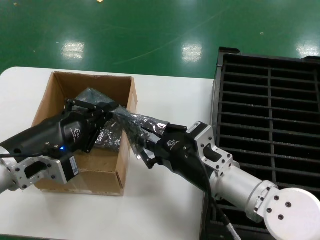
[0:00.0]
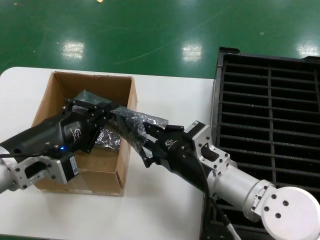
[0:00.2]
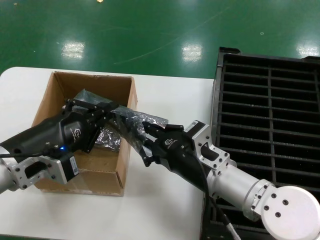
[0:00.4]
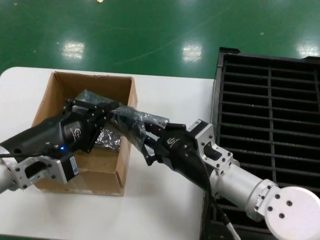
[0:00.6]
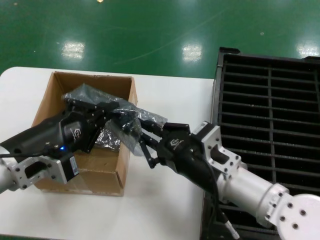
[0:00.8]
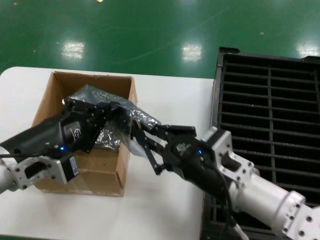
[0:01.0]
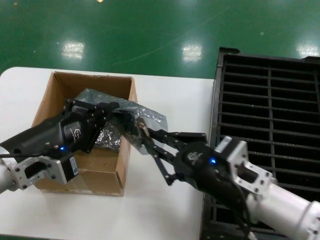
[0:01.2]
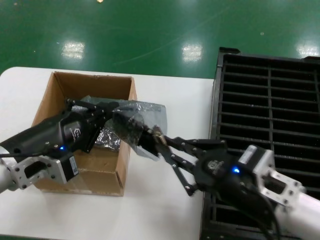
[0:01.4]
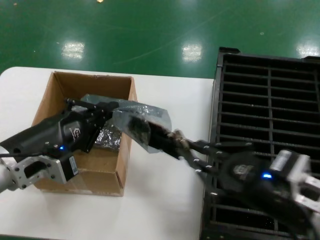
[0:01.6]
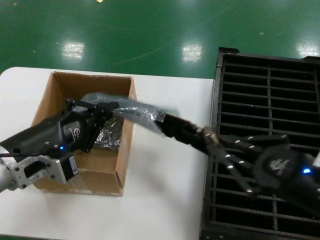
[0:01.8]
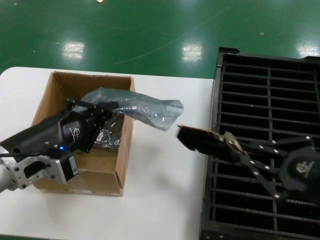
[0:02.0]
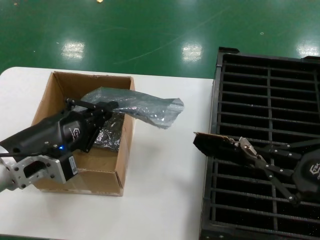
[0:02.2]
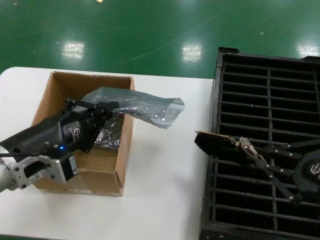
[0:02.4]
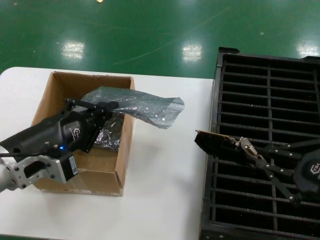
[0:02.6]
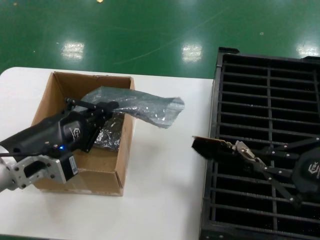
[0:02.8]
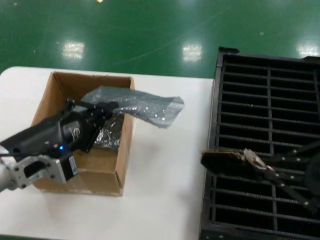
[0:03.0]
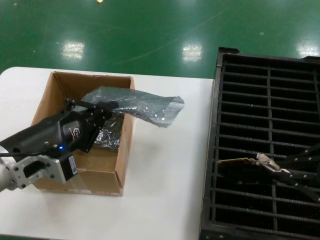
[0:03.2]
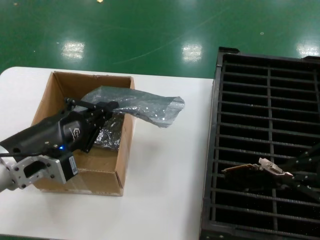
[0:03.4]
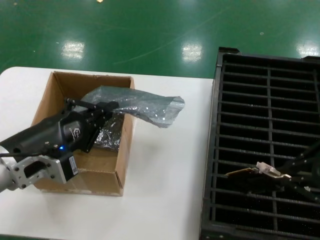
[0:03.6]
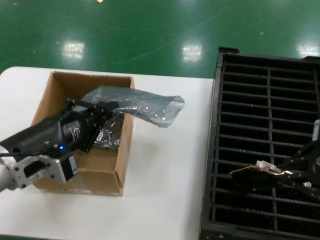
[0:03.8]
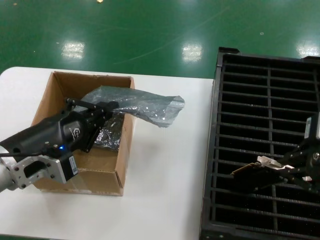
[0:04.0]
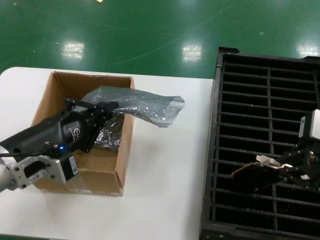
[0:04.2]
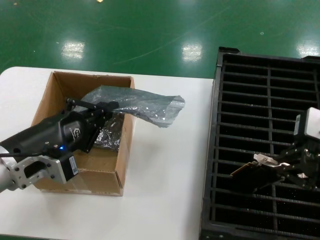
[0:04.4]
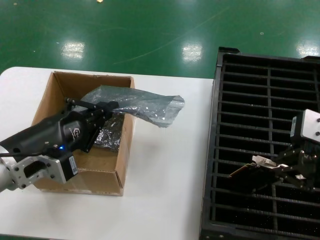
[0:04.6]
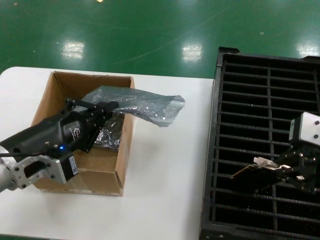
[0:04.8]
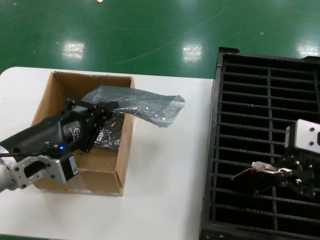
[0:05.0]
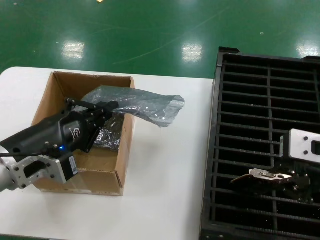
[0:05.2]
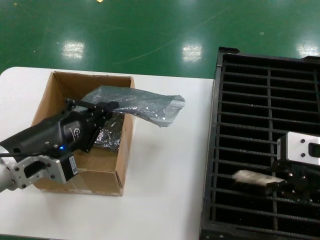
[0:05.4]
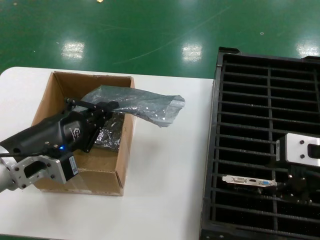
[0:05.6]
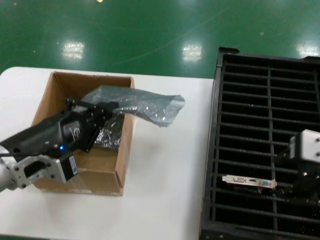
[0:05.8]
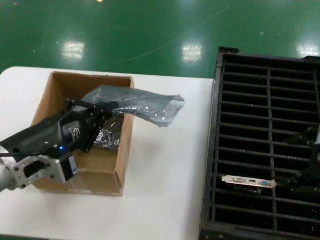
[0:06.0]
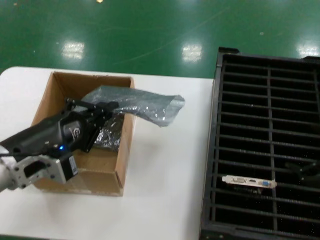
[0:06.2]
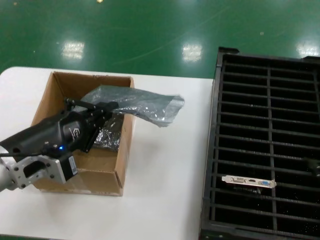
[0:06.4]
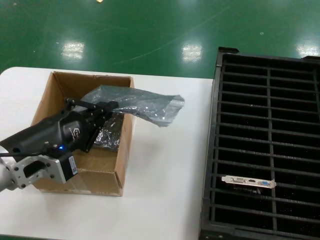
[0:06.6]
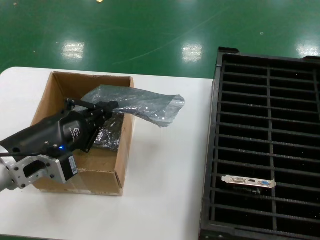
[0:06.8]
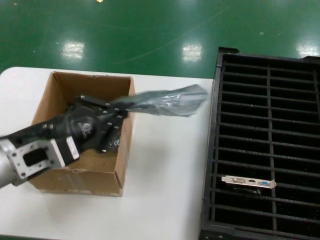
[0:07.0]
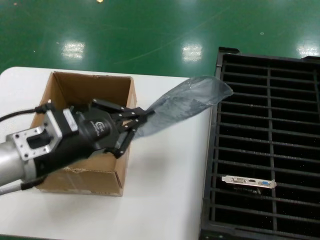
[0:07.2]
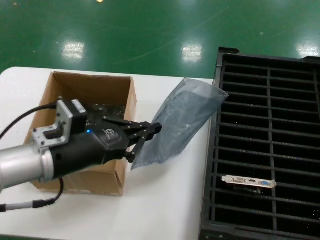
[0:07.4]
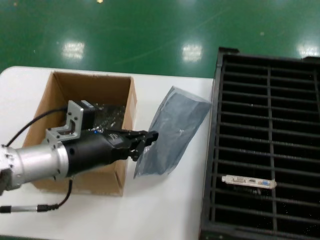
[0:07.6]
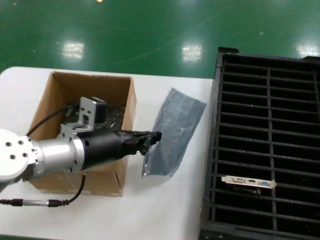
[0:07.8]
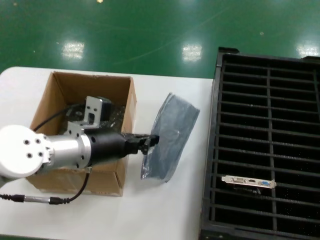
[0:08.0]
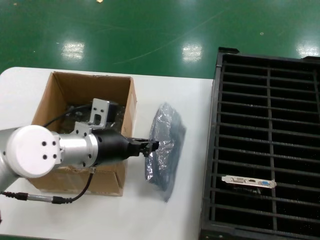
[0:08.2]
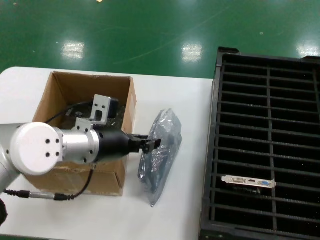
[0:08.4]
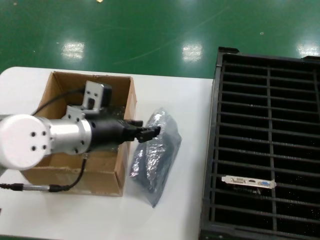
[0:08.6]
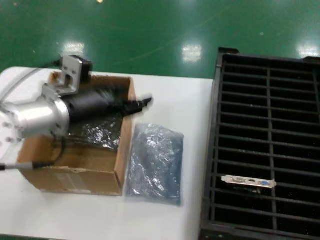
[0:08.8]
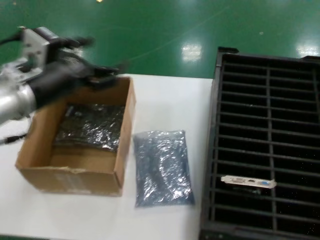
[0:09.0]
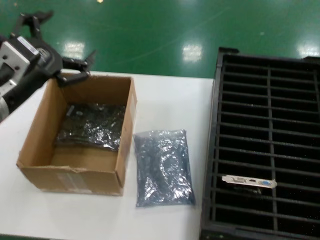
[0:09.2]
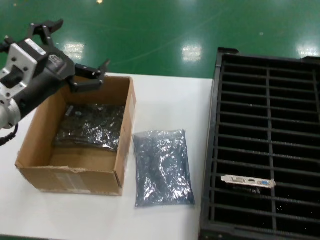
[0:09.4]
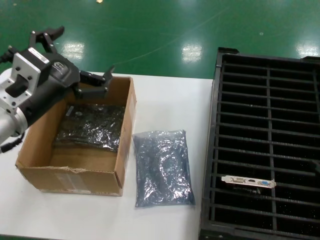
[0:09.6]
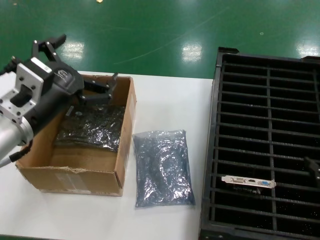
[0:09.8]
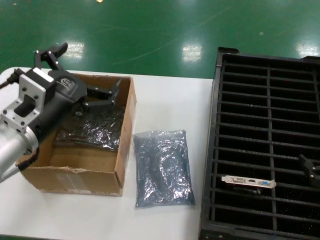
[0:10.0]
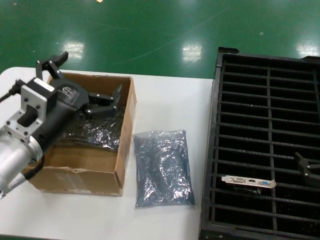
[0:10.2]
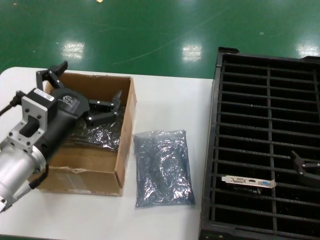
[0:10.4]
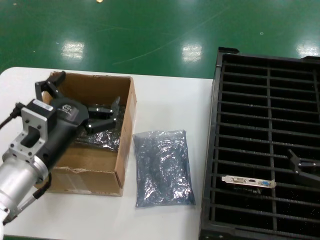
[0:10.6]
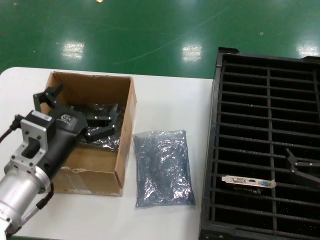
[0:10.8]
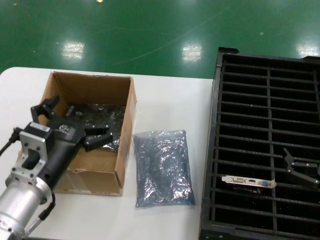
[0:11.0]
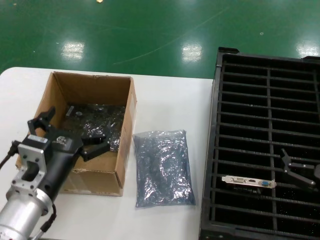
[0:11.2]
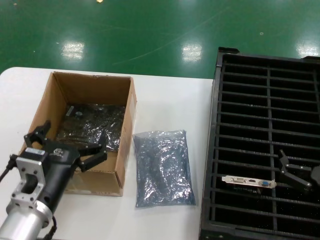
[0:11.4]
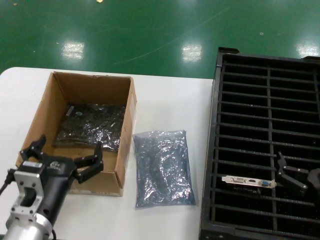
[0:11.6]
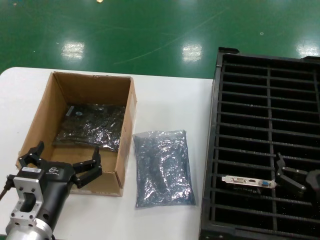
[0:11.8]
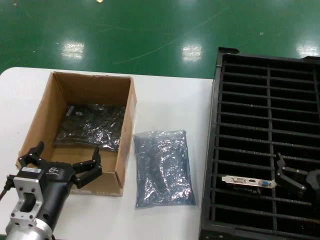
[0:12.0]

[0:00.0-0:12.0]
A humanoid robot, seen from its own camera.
Task of the whole recording: take out graphics card from box remove packaging put into black container.
Step, 0:00.0 to 0:02.0: Take out the hard disk of the bag.
Step, 0:02.2 to 0:06.4: Place the hard disk in the hard disk enclosure.
Step, 0:06.6 to 0:09.2: Place the down the bag.
0:00.0 to 0:01.6: The right hand moves to the right, backward and upward, some 15 cm.
0:01.6 to 0:03.0: The right hand travels upward and to the right by roughly 15 cm.
0:03.0 to 0:04.4: The right hand is displaced forward by some 5 cm.
0:04.4 to 0:06.0: The hands stay close to where they were, moving slightly.
0:06.0 to 0:07.6: The right hand travels to the right and downward by about 20 cm; the left hand heads forward, covering approximately 5 cm.
0:07.6 to 0:09.0: The left hand travels upward by about 10 cm.
0:09.0 to 0:10.4: The right hand heads downward and to the left, covering about 10 cm, while the left hand is displaced downward by about 10 cm.
0:10.4 to 0:12.0: The right hand heads to the left and downward, covering some 10 cm; the left hand heads downward and backward, covering approximately 15 cm.

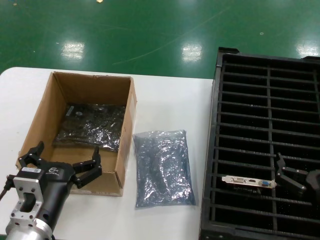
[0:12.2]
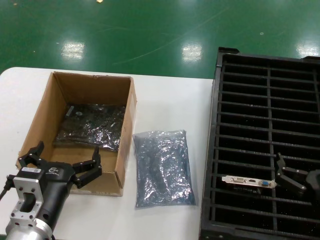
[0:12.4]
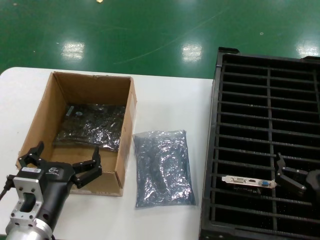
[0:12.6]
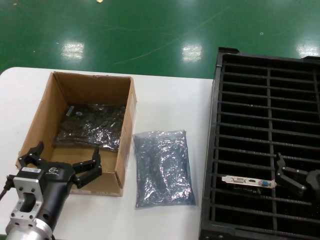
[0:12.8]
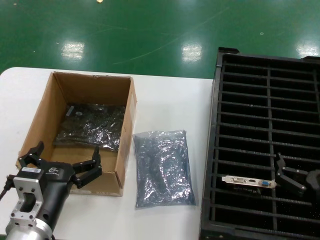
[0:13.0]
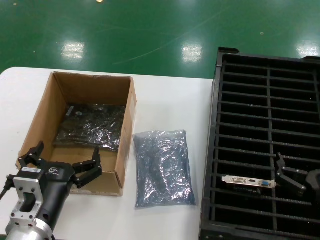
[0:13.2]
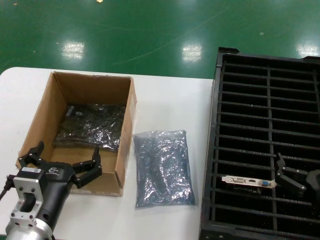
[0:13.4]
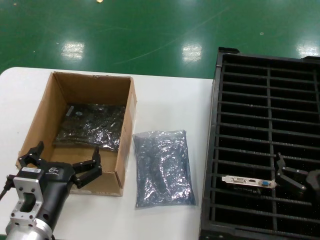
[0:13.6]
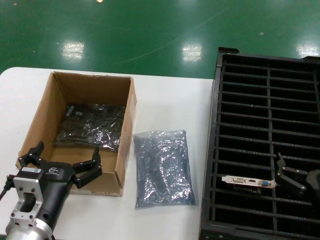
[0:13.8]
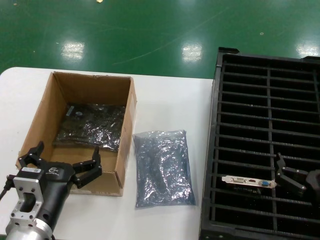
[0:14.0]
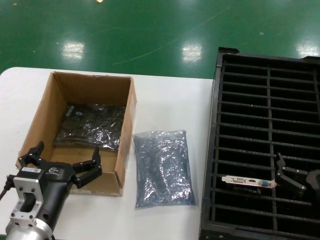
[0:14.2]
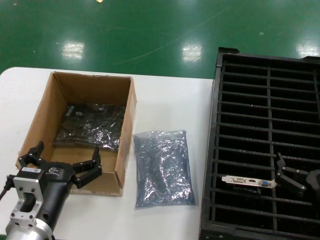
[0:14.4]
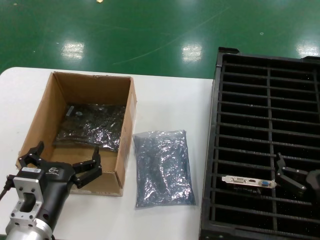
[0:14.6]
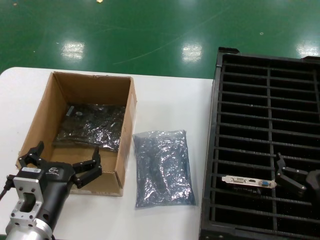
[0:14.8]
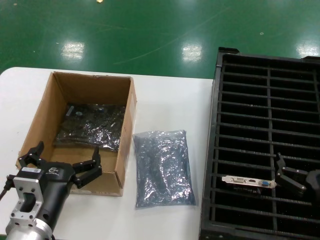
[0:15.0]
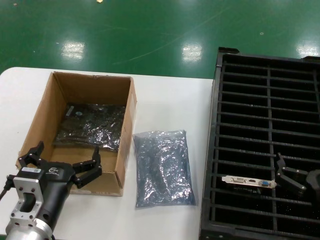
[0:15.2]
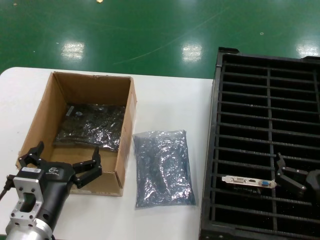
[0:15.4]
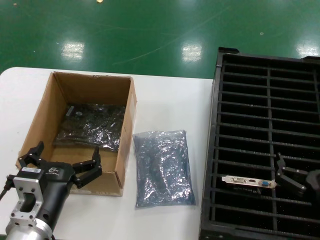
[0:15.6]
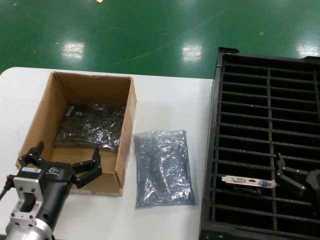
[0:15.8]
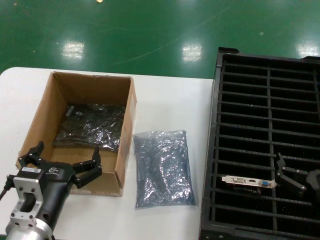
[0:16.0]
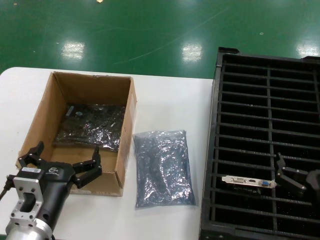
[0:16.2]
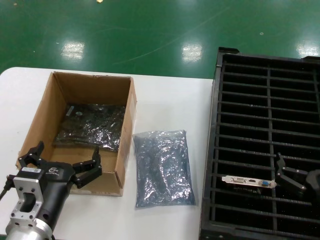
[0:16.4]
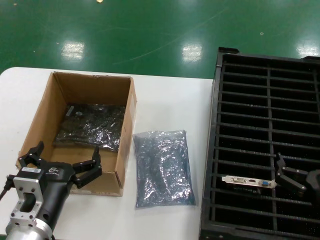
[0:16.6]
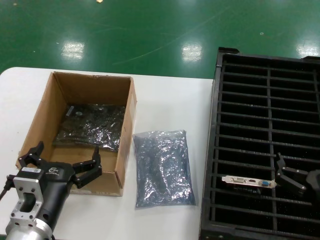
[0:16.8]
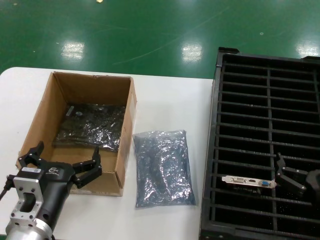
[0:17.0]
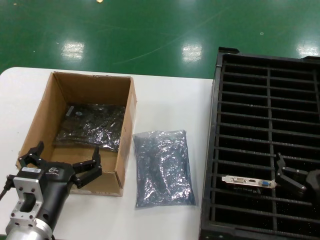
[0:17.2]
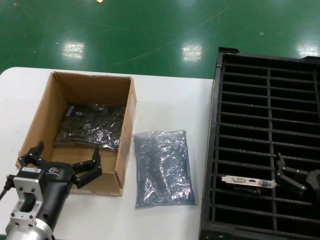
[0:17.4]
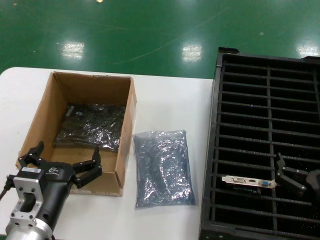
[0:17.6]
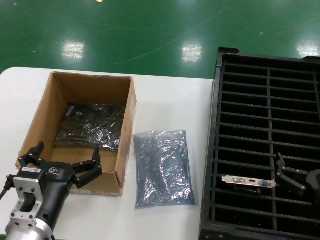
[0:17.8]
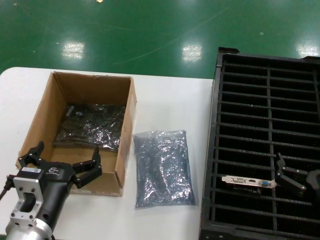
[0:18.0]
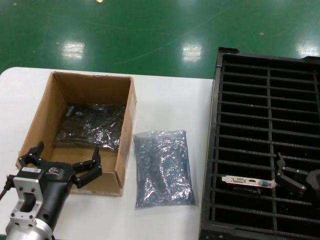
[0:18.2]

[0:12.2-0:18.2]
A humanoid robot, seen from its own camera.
Task of the whole recording: take out graphics card from box remove packaging put into black container.
0:12.2 to 0:18.2: The two hands keep their place.
